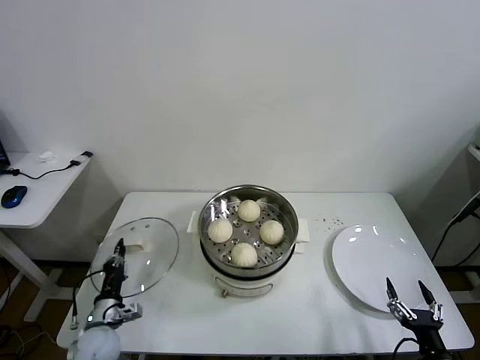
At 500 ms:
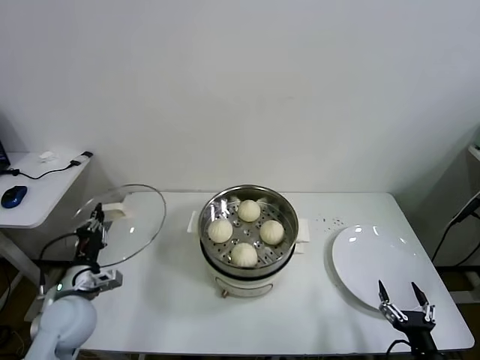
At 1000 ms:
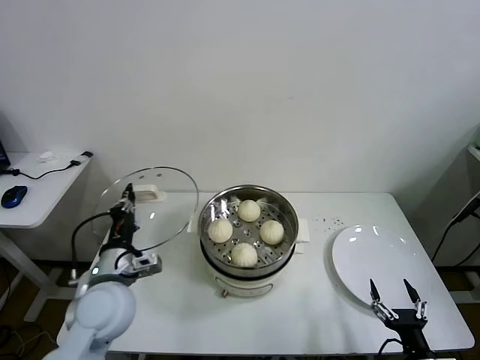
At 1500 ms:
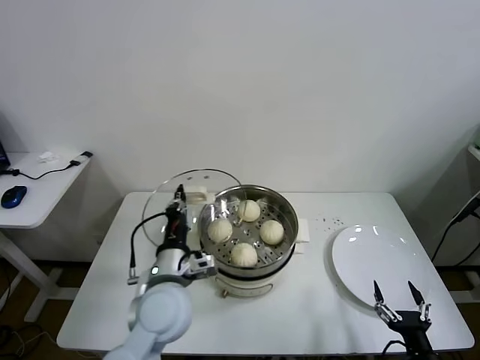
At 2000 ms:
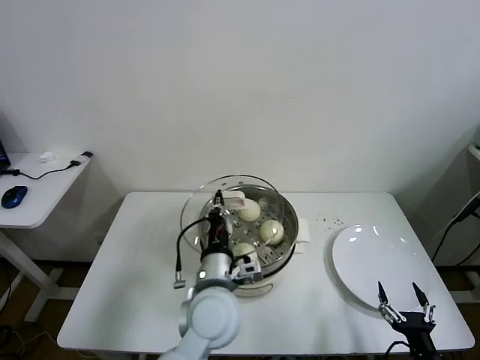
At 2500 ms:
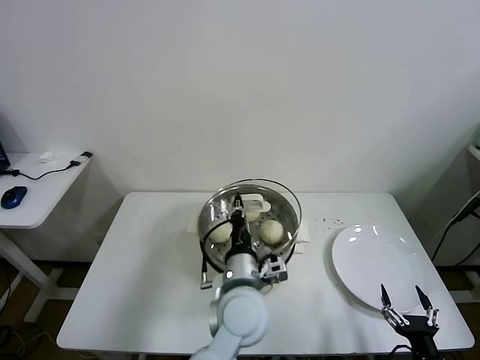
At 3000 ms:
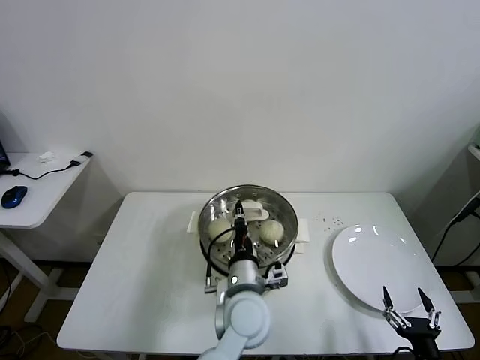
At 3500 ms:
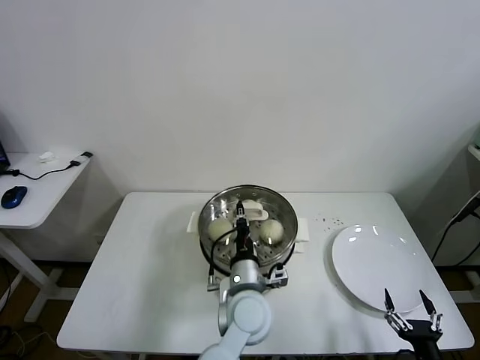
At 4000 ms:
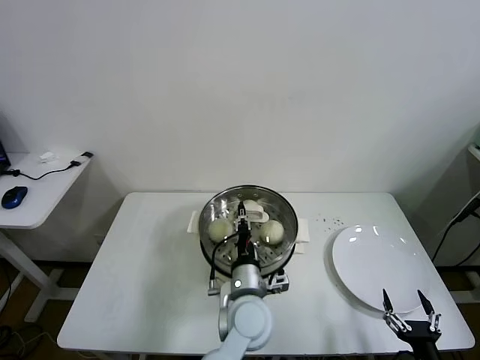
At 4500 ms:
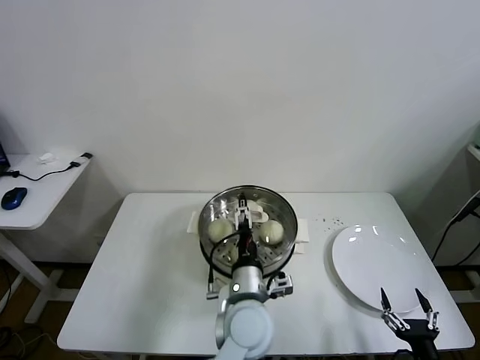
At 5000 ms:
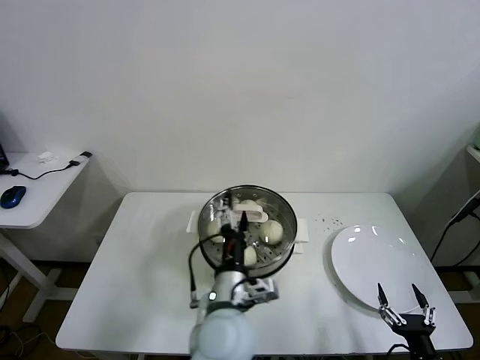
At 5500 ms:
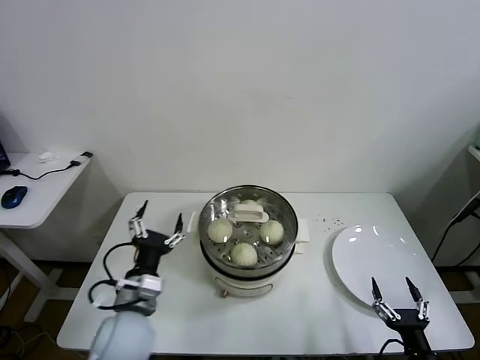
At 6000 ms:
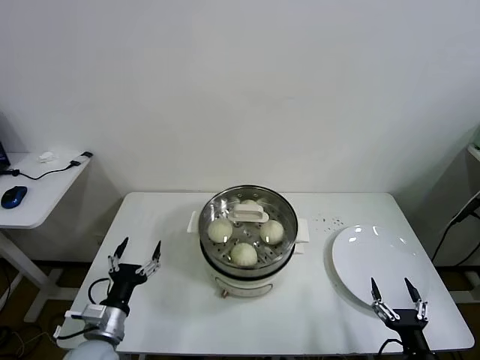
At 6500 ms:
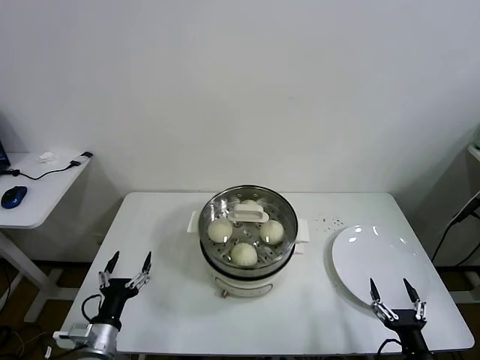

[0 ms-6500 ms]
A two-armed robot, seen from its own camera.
Task of the whole recording: take steamed baozi put them in steamer.
Step, 0 ms to 4000 ms: Place the pot lid on the steamer with left gripper.
0 ms to 2000 ms: The left gripper travels to the right and upward by about 35 cm.
2000 ms to 4500 ms: The left gripper heads to the right, covering roughly 5 cm, and opens its fingers.
4500 ms to 6500 ms: The left gripper heads to the left, covering roughly 35 cm.
